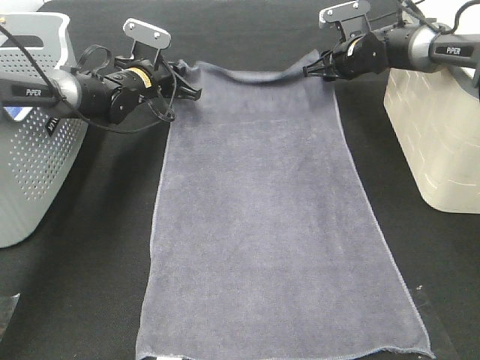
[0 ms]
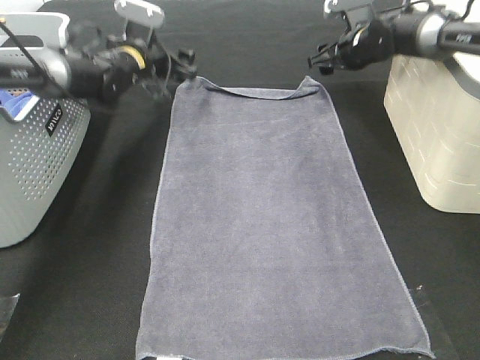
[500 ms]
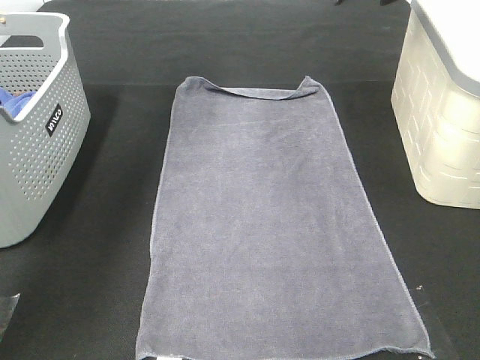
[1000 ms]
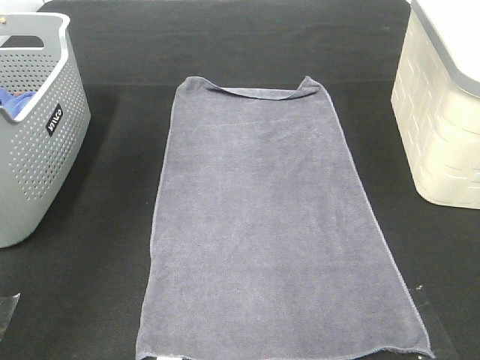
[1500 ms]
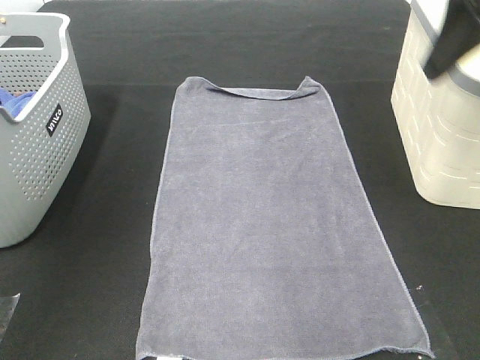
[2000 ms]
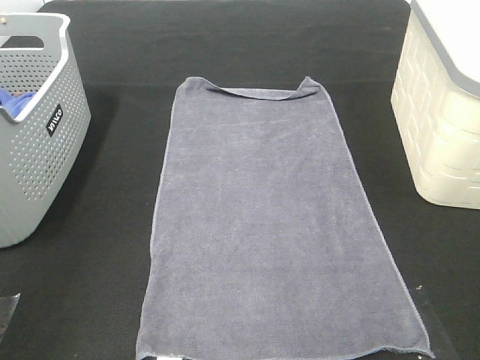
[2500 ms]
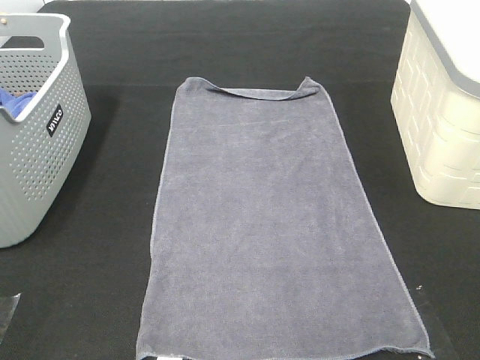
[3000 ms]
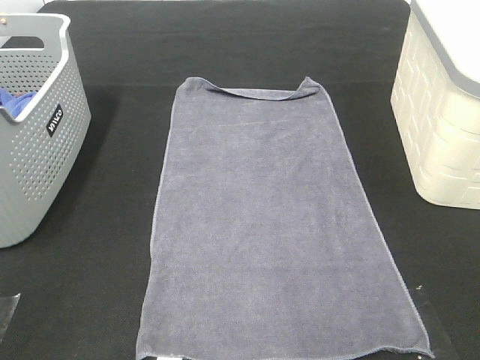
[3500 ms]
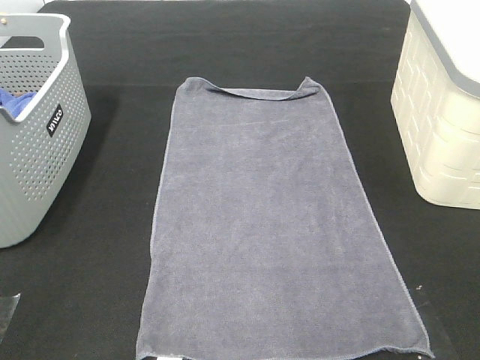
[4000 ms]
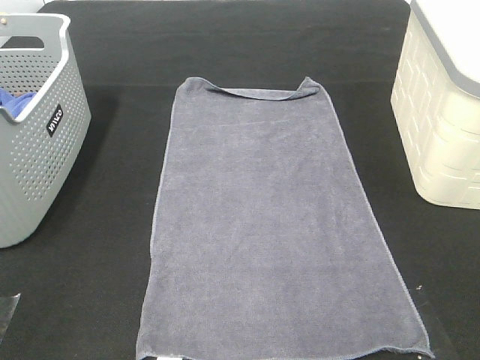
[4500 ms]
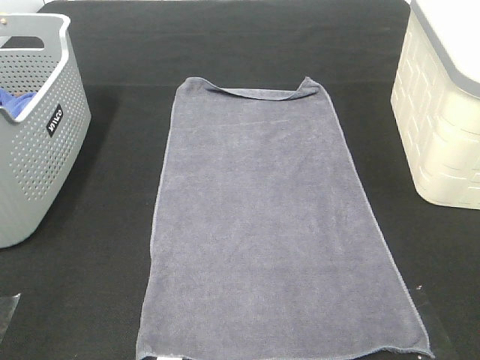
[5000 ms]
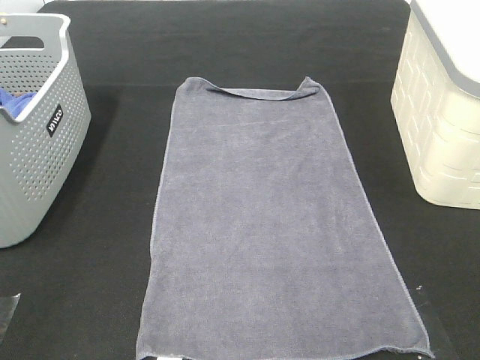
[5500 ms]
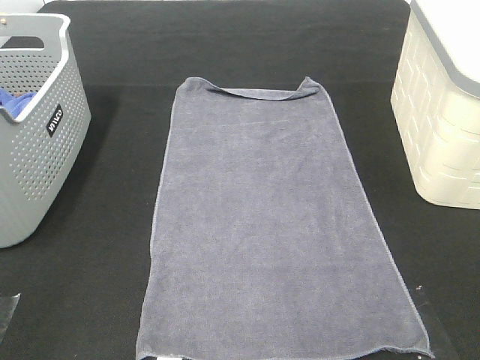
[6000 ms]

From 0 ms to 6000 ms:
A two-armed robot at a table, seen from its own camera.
Task of the whole recording: Remove the towel and place it.
From 0 ms to 2000 ms: The two grippers go some 40 cm backward and upward. The left gripper opens.
From 2000 ms to 4000 ms: The right gripper is displaced backward by about 25 cm, while the left gripper travels backward and downward by about 25 cm.

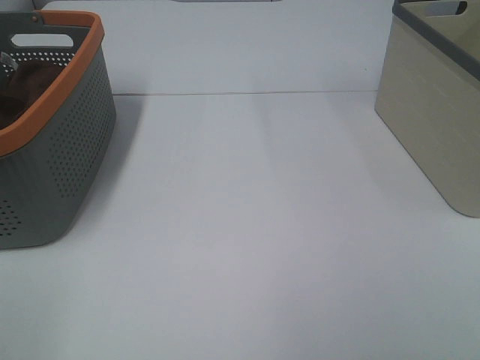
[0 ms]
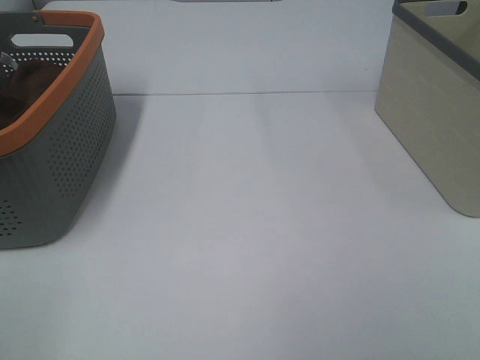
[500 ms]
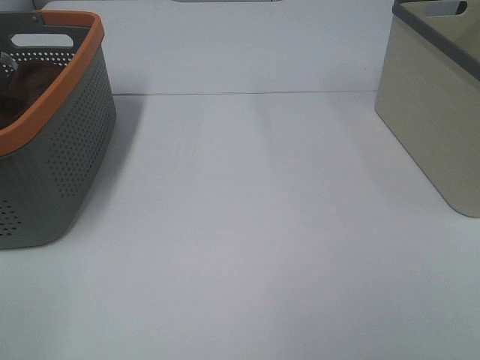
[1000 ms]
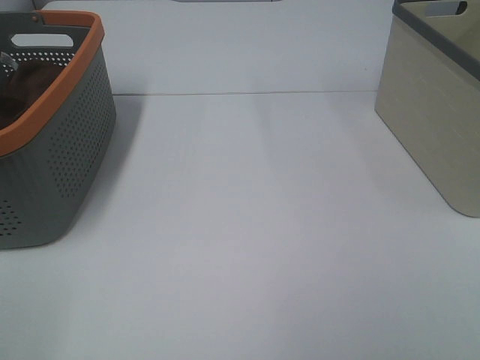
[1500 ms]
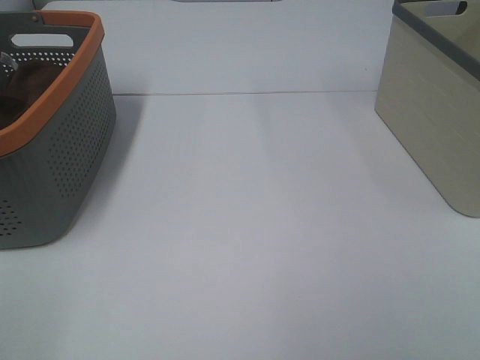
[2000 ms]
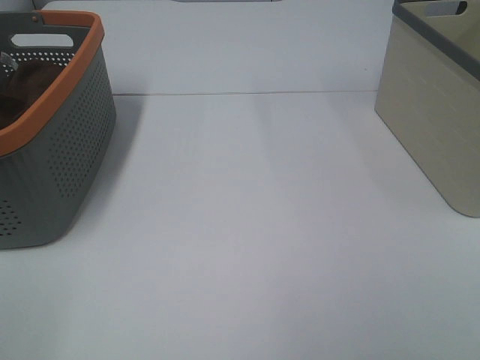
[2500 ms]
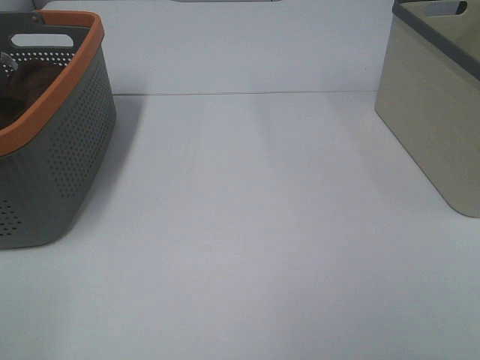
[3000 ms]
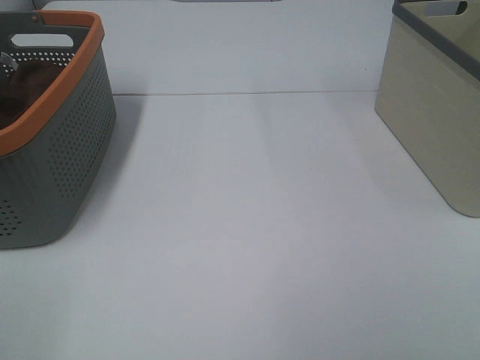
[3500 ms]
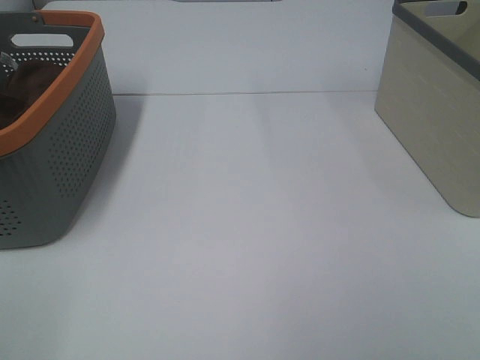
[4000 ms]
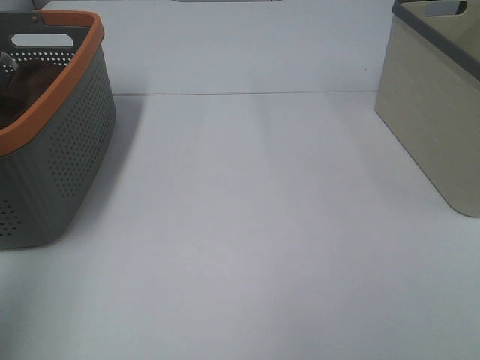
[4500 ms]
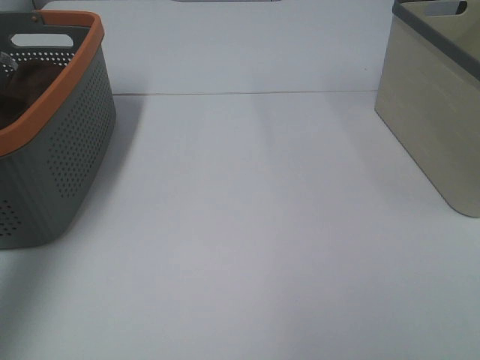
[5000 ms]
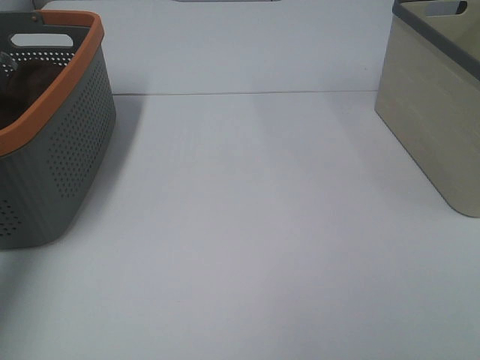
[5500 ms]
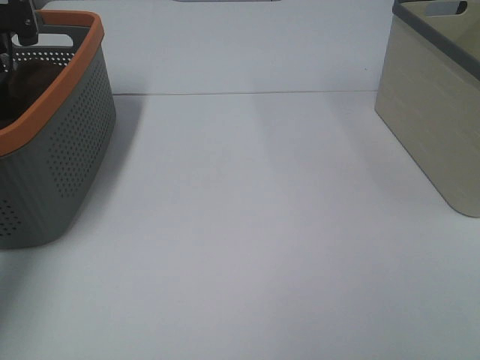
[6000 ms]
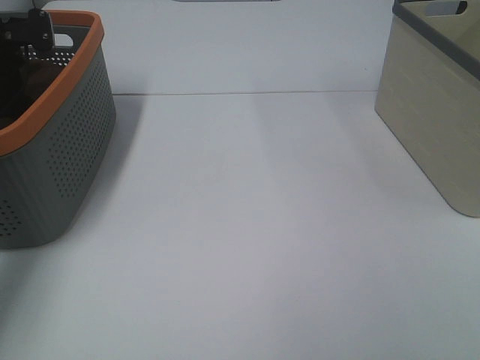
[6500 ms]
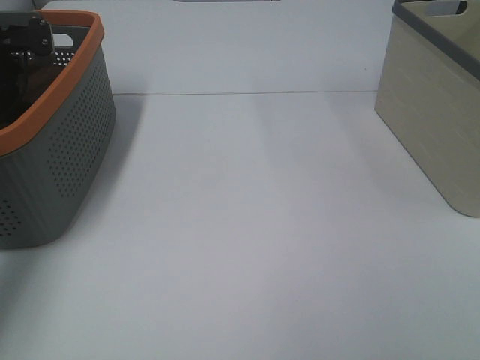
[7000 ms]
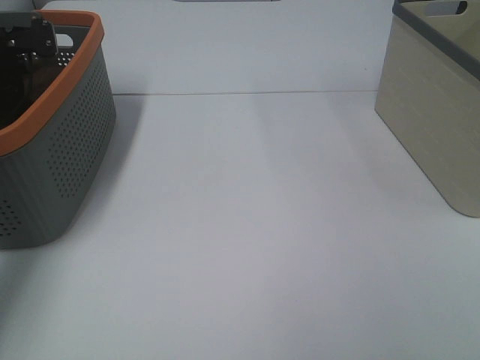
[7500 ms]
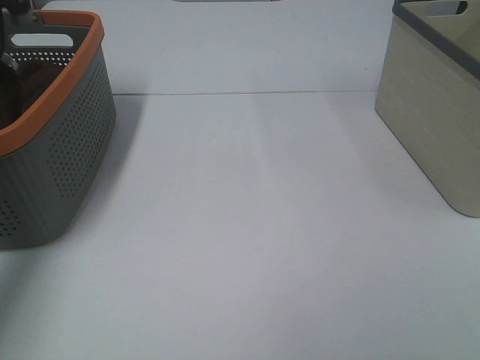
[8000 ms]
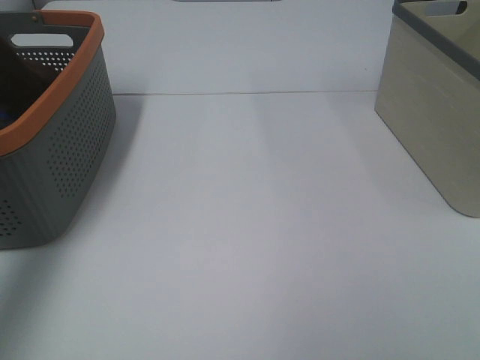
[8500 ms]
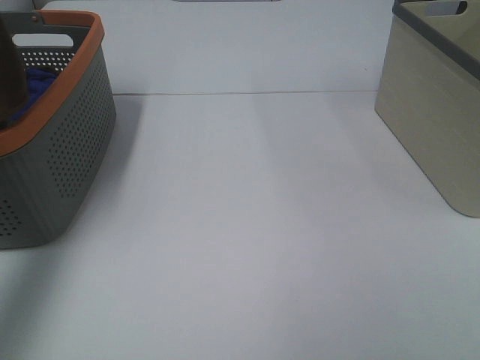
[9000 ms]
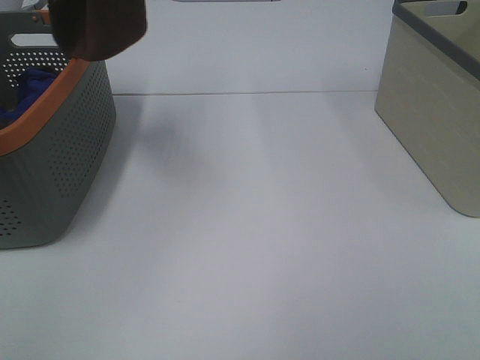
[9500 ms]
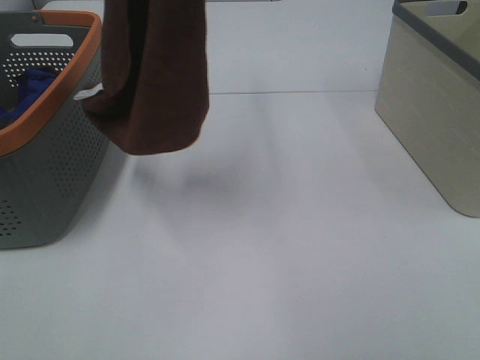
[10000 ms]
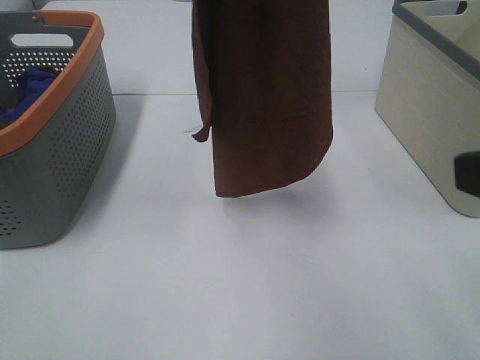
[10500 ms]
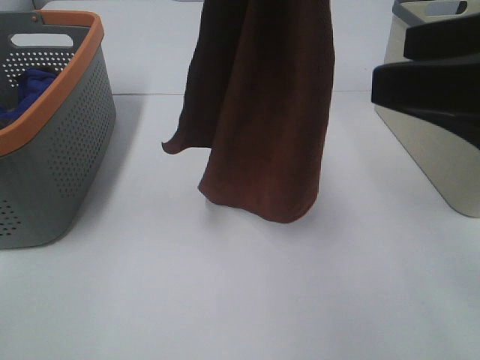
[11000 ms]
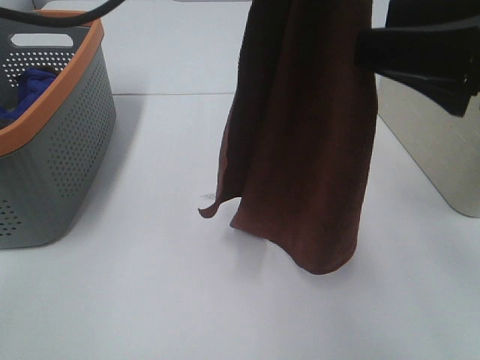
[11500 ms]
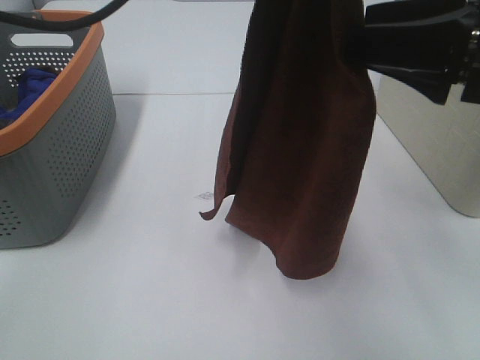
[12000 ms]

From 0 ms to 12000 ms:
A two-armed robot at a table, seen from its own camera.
Task of the whole recording: Remove the towel and place it.
From 0 ms to 4000 ms: Both grippers stay about where they are.
From 4000 ms to 6000 ms: The left gripper moves forward, some 50 cm.
From 8000 ms to 10000 ms: The left gripper moves upward, to the right and backward, about 35 cm.
From 10000 ms to 12000 ms: The right gripper shifts some 20 cm forward; the left gripper goes approximately 10 cm to the right and downward.

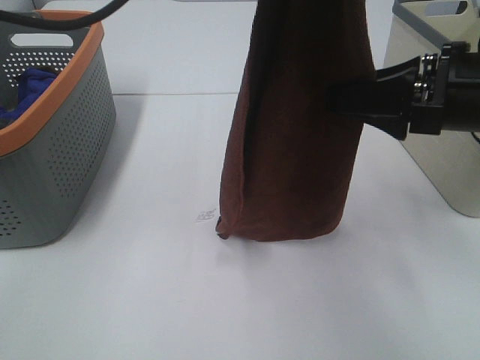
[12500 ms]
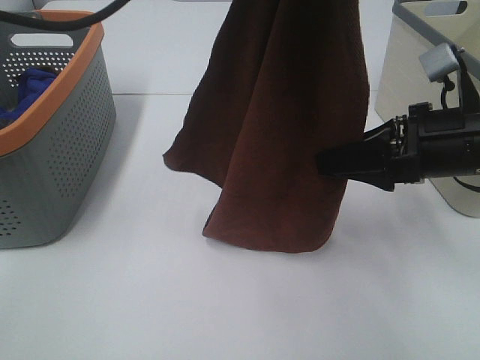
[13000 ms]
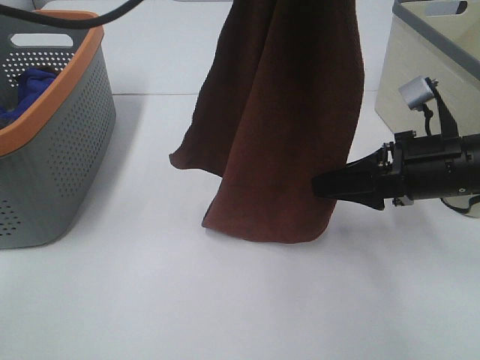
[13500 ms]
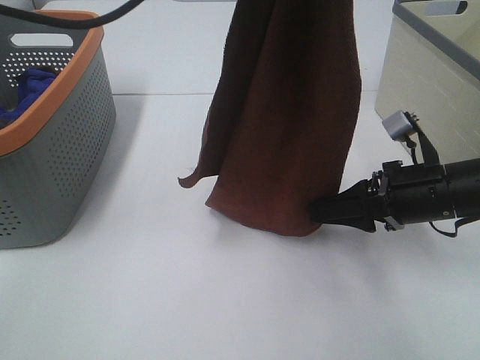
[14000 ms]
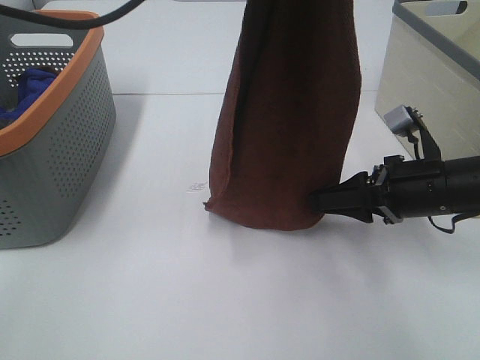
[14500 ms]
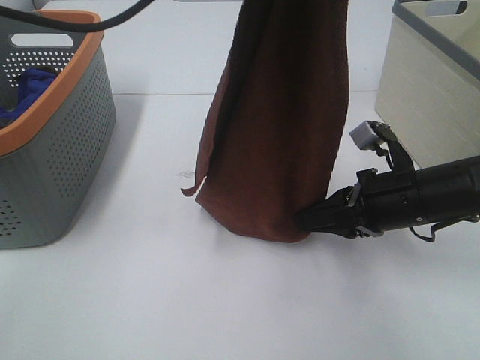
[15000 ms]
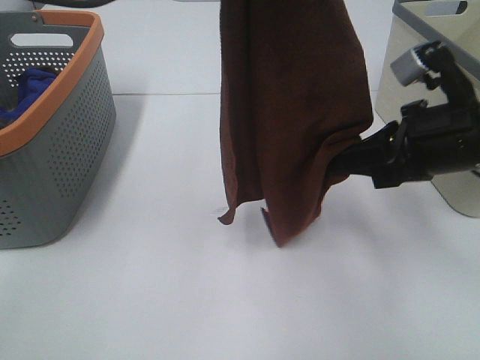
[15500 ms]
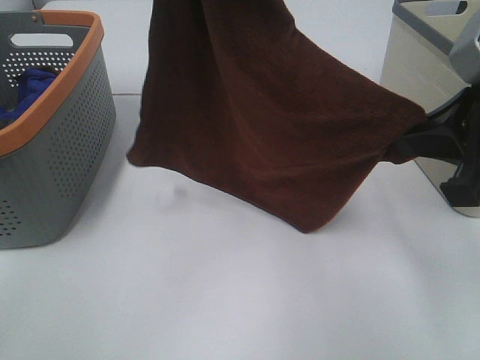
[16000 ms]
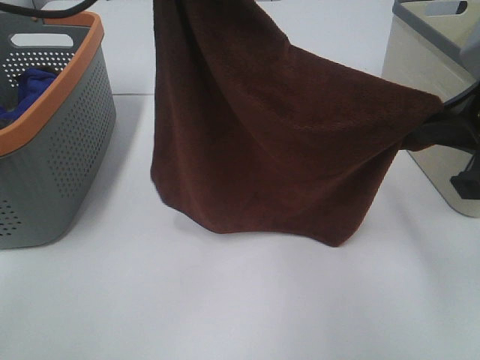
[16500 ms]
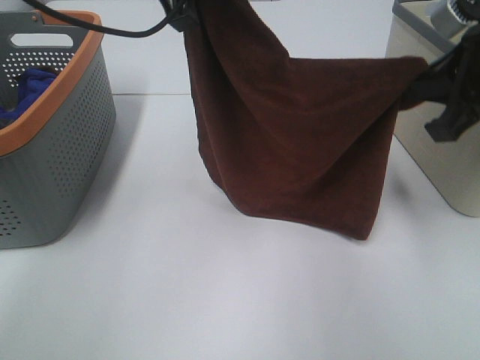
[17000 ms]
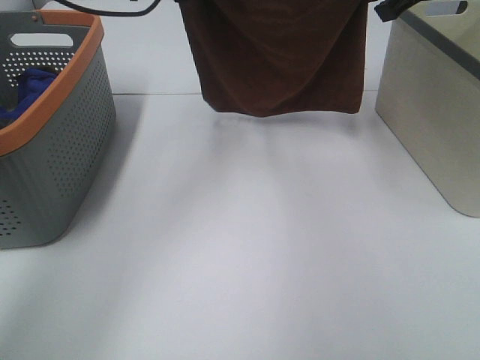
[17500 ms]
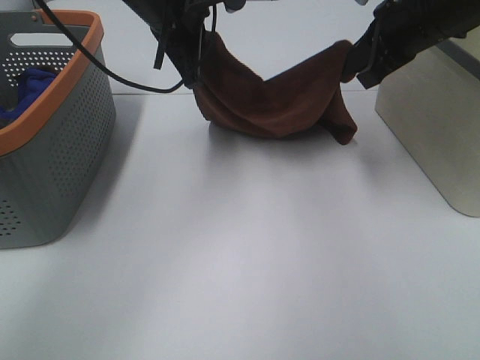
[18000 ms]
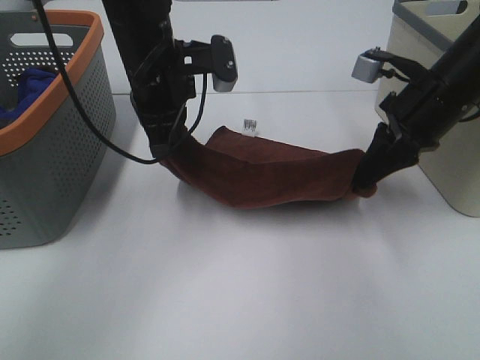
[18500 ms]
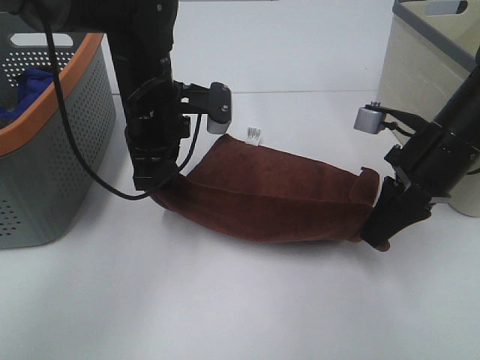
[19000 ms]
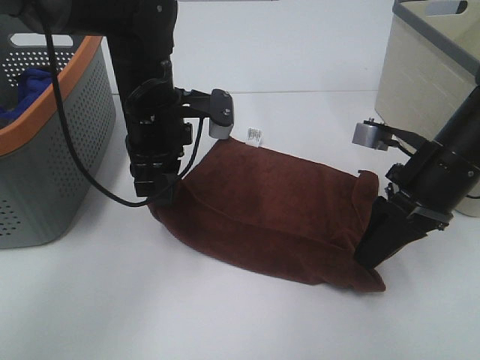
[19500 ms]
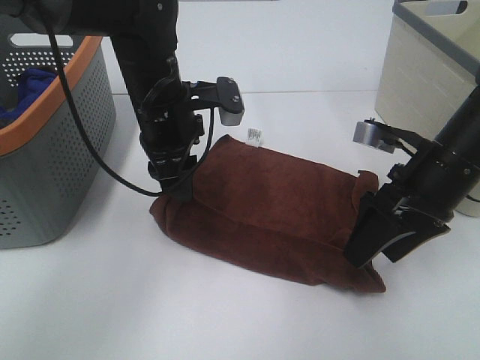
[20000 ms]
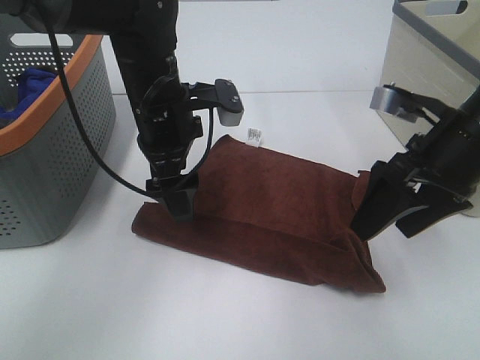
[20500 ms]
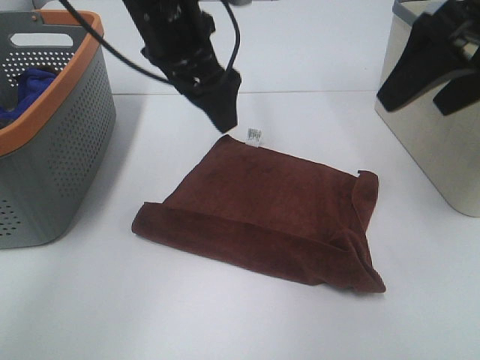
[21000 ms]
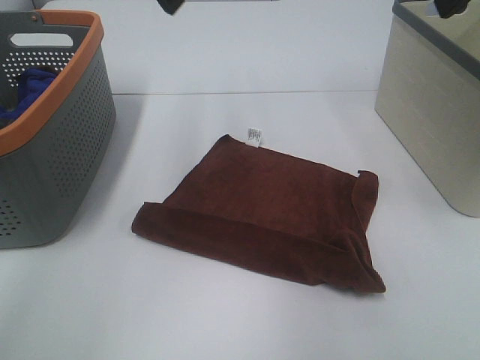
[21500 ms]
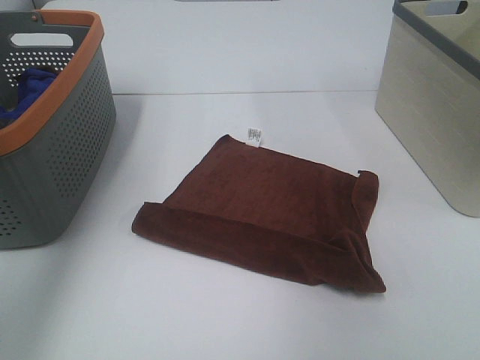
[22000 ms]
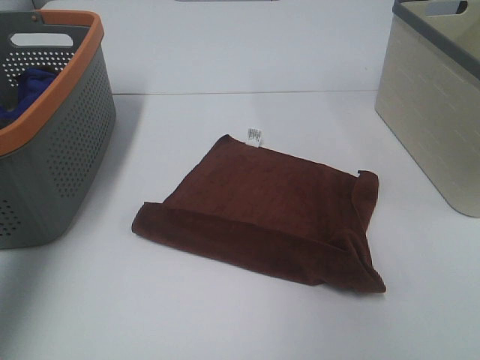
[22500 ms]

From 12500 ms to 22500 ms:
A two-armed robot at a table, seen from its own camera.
Task of the whole recording: Remove the towel and place it.
Step, from 13500 ms to 15500 ms: Left hand: spread the brown towel flat on the table.
Step, from 13500 ms to 15500 ms: Right hand: spread the brown towel flat on the table.
From 12500 ms to 14500 ms: The right gripper moves downward, roughly 10 cm.
From 14500 ms to 16500 ms: The left gripper goes roughly 10 cm to the left and forward; the right gripper shifts some 20 cm upward, and closes up.
From 16500 ms to 18500 ms: The left gripper travels downward and forward by about 20 cm. Meanwhile the right gripper is displaced forward and downward by some 15 cm.
From 18500 ms to 20500 ms: The left gripper opens up; the right gripper is displaced backward by approximately 5 cm, and opens up.
From 20500 ms to 22500 ms: The left gripper heads to the left and upward, covering roughly 35 cm, while the right gripper travels upward and to the right by about 25 cm.
